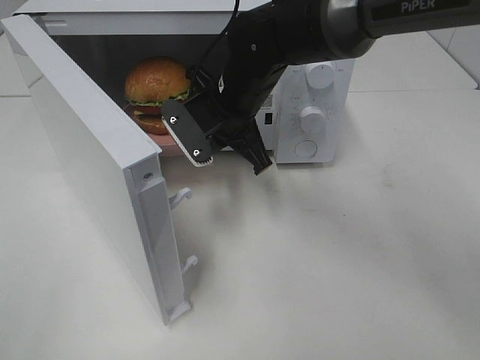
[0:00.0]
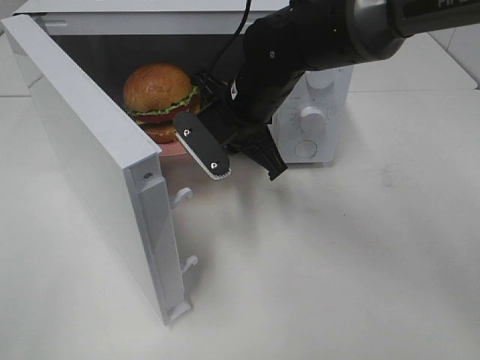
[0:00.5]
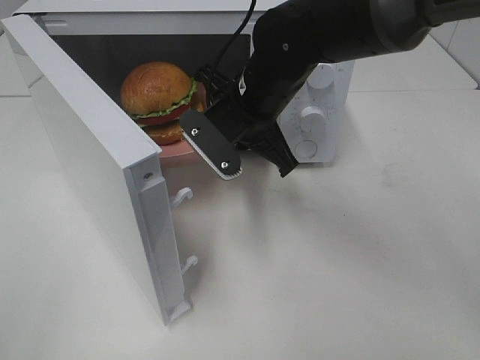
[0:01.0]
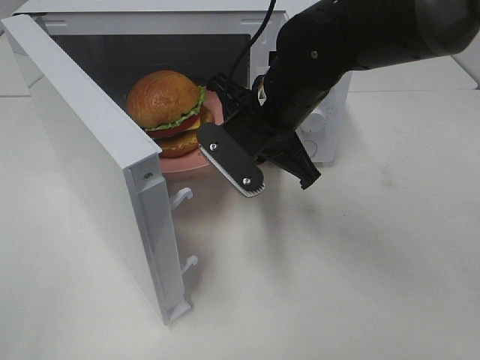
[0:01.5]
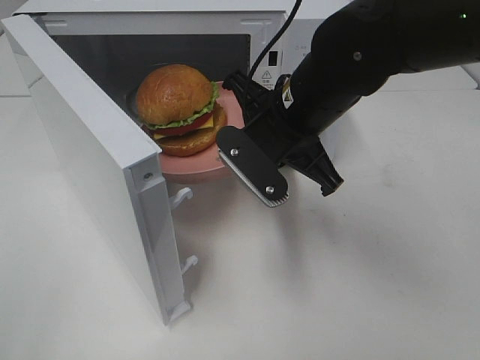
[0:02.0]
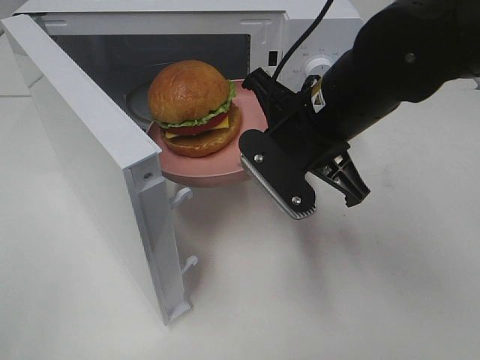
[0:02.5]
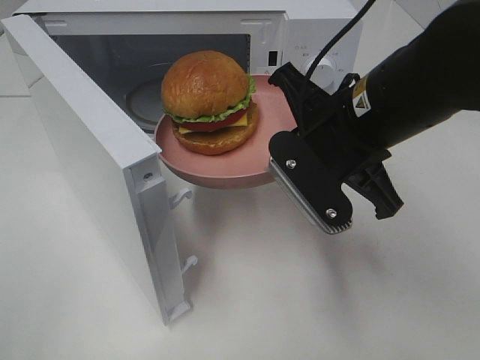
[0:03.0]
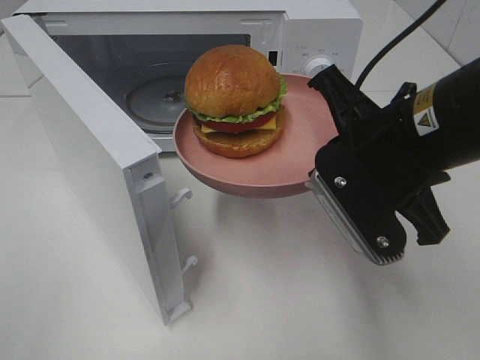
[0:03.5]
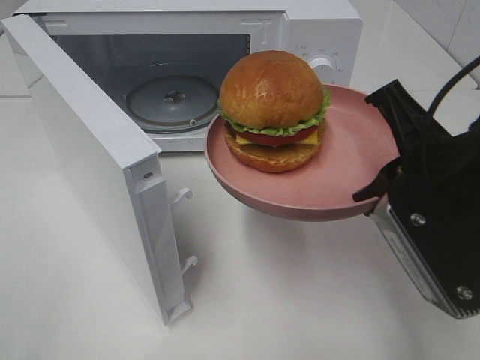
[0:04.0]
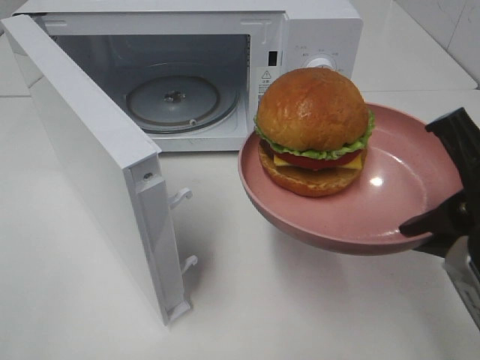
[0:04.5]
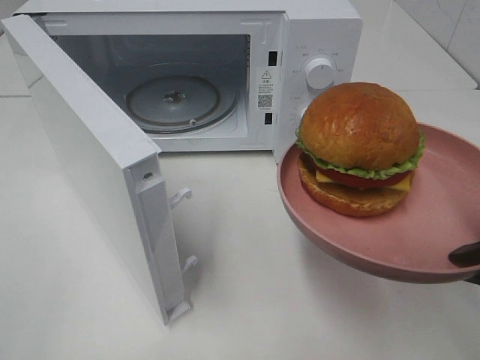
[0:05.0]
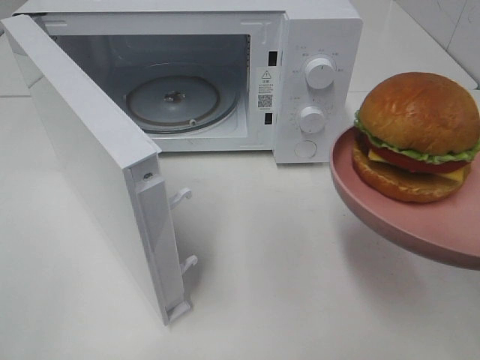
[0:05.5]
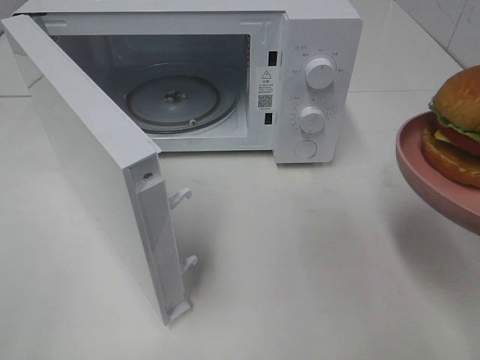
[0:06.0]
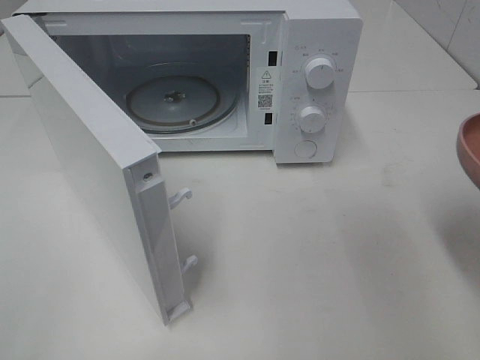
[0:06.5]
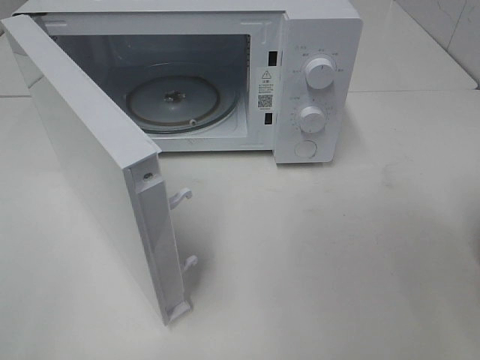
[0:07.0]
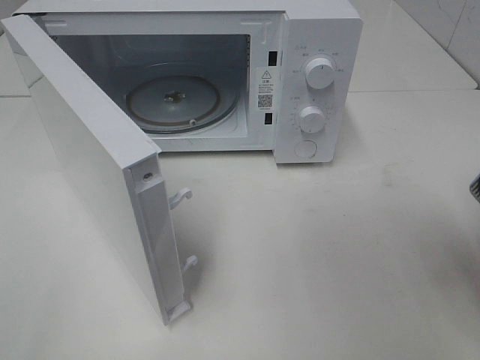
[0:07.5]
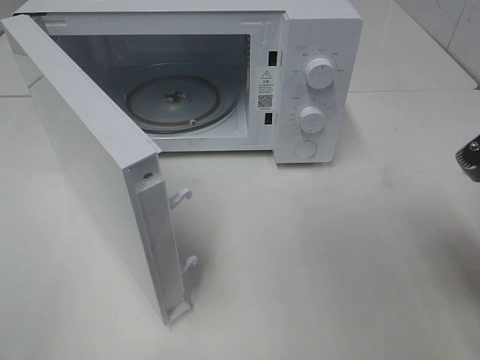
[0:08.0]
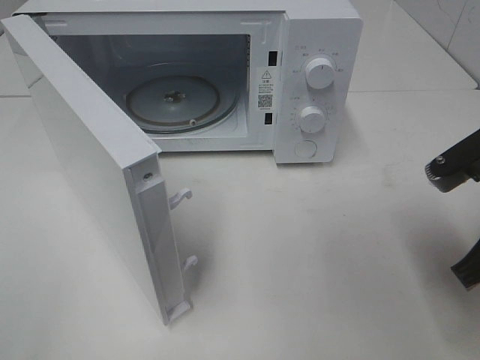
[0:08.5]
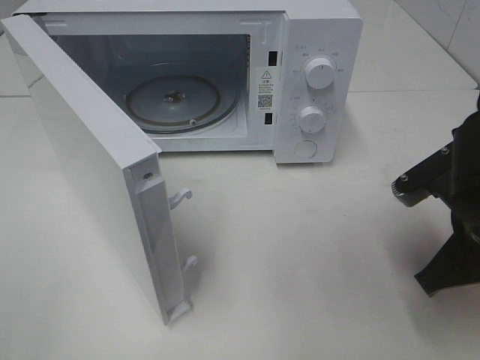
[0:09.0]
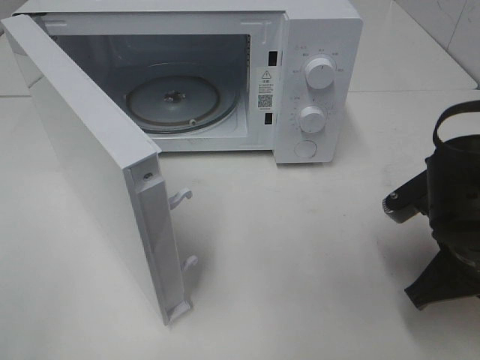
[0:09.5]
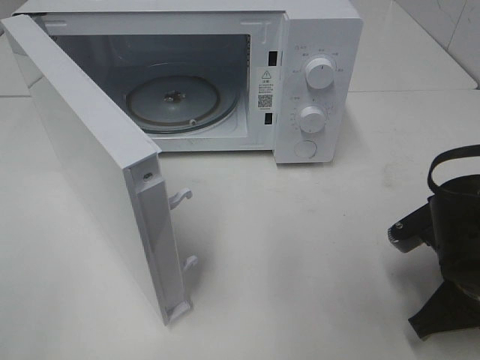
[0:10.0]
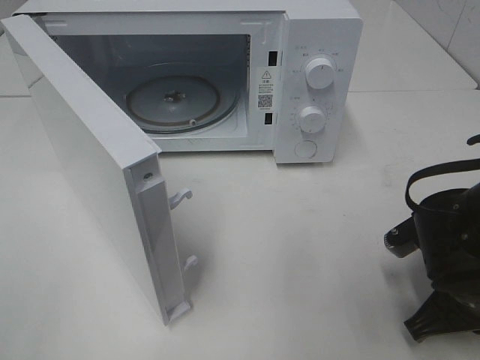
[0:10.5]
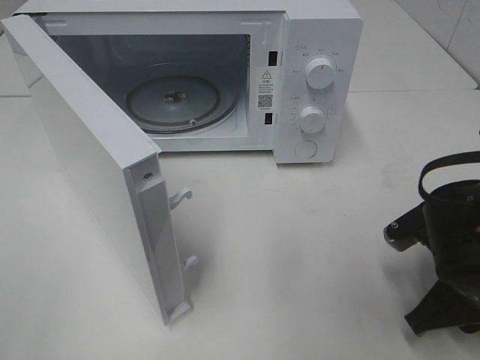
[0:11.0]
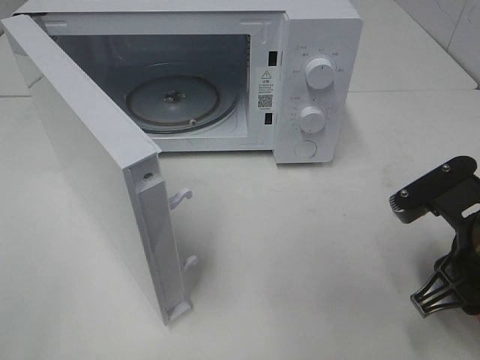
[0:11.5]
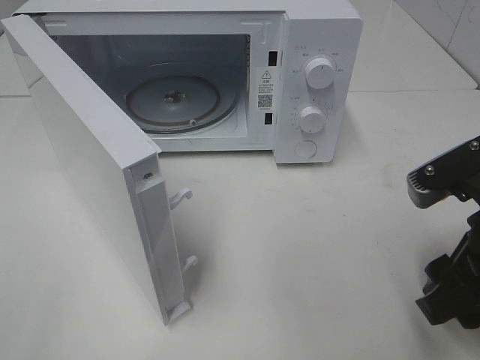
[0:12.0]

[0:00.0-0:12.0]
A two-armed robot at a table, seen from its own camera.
Task of the whole recording: Heat the burger.
Step, 0:00.0 to 0:10.5: Right hand: place the plate on the table.
0:00.0 to 0:02.0: The right gripper heads backward and to the right, covering some 10 cm.
0:02.0 to 0:04.0: The right gripper travels backward and to the right by approximately 15 cm.
0:04.0 to 0:06.0: The right gripper is displaced to the right and backward by about 10 cm.
0:06.0 to 0:08.0: The right gripper heads forward, covering approximately 5 cm.
0:08.0 to 0:10.0: The right gripper shifts about 10 cm downward.
0:10.0 to 0:12.0: The right gripper moves upward, some 10 cm, and opens its fingers.

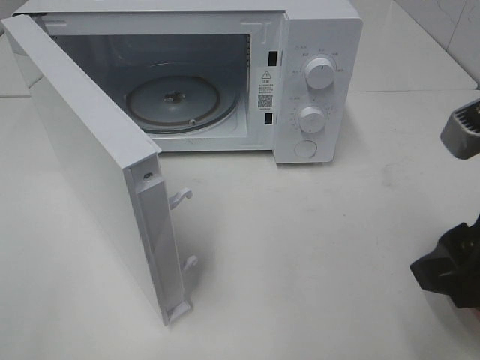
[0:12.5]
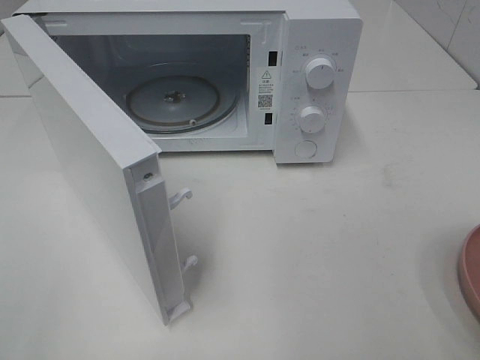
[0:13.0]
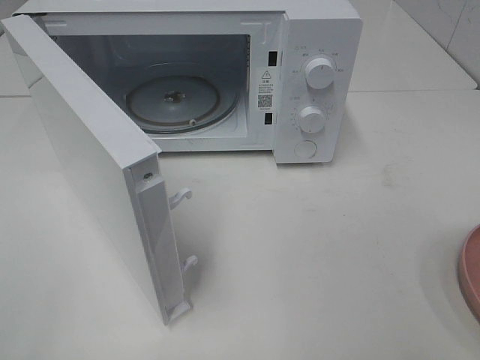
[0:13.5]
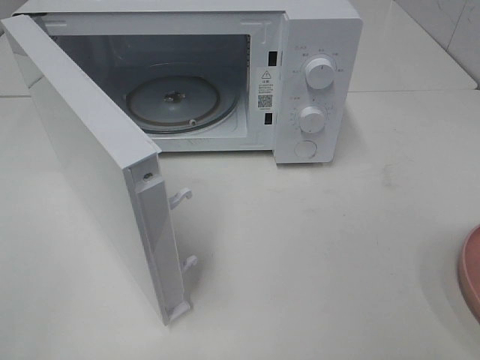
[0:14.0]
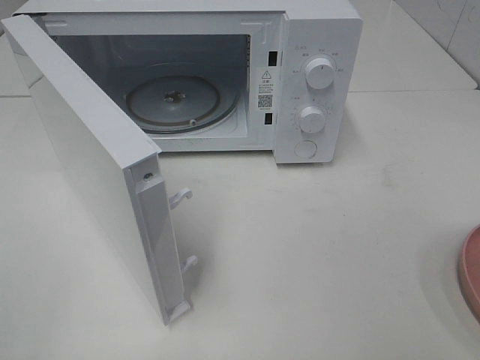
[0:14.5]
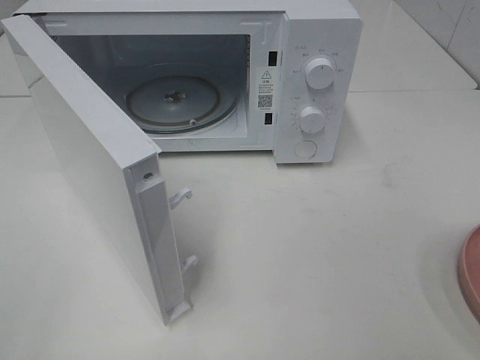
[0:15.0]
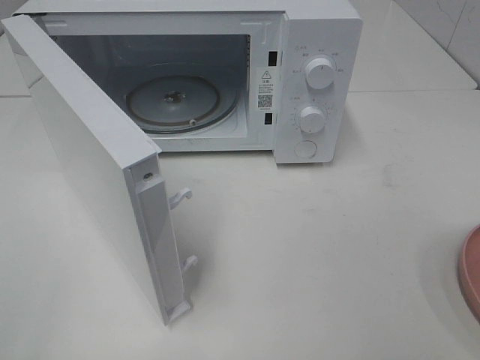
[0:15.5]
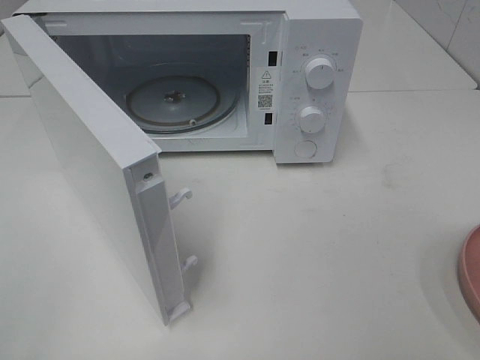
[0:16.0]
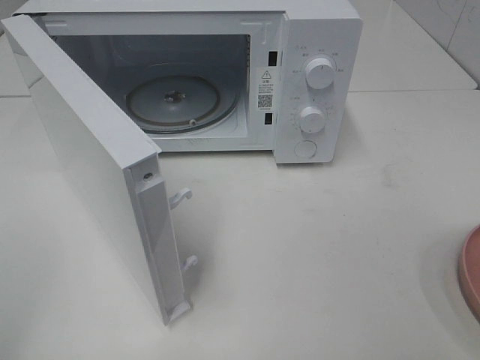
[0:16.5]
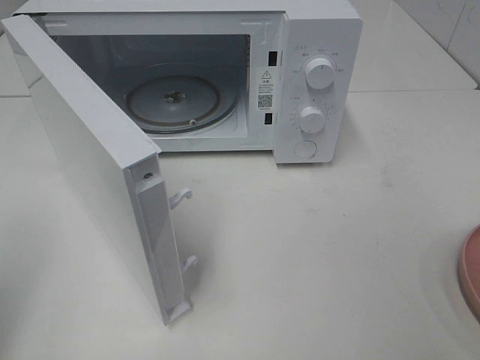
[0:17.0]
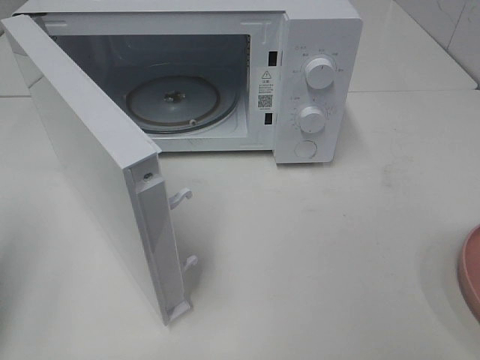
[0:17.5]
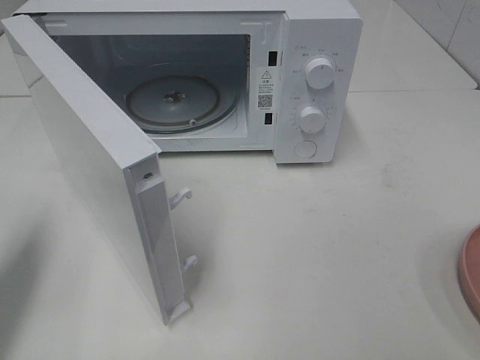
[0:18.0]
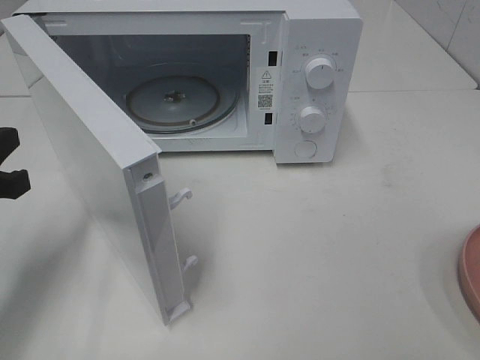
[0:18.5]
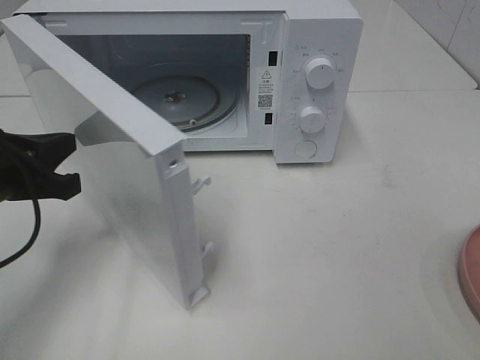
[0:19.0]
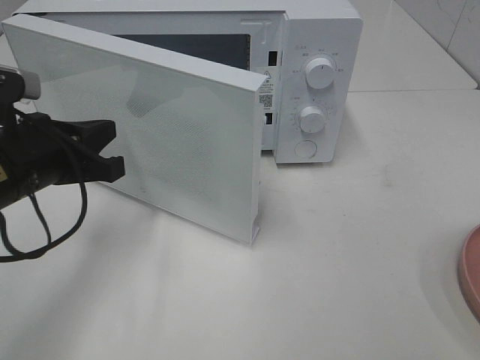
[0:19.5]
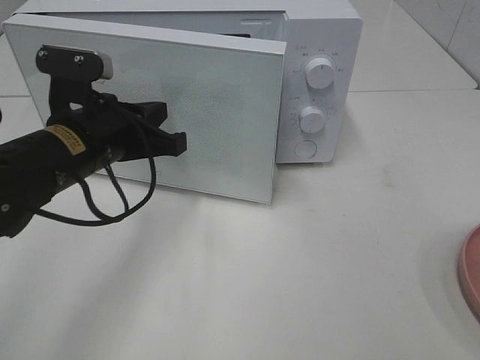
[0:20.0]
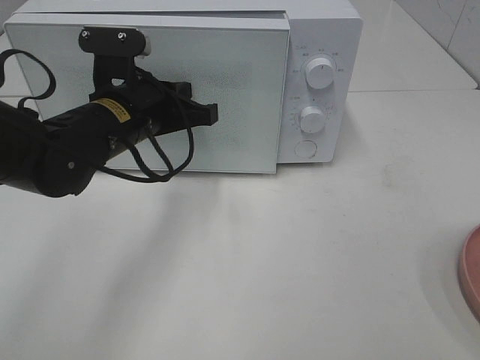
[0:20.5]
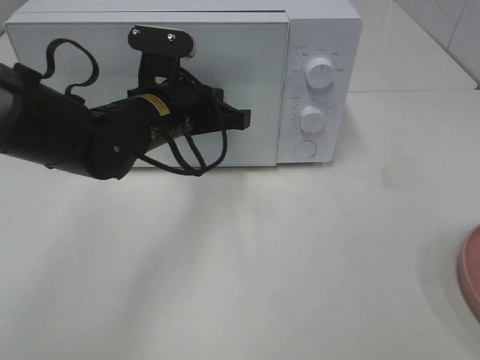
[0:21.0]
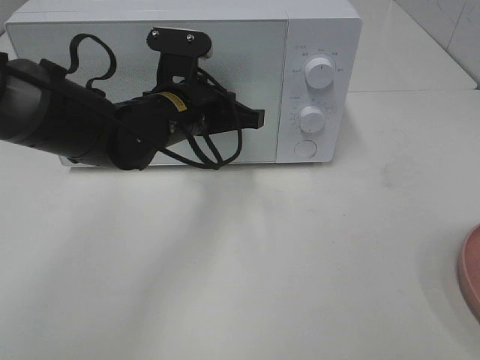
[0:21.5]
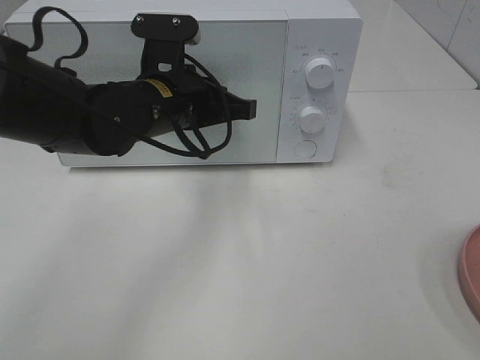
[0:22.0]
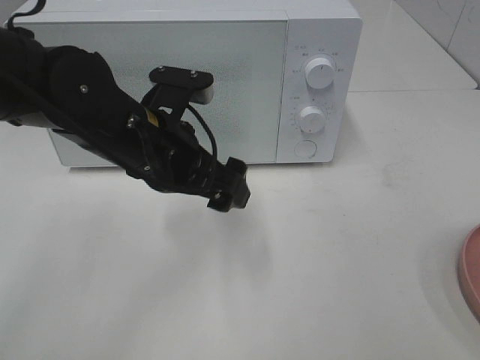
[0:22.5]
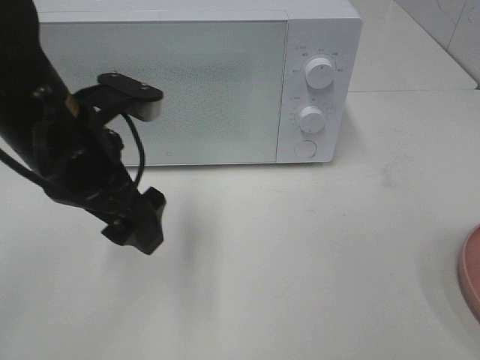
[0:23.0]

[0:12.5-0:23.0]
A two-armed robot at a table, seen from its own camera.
Task of the whole recording: Heat the burger.
Step, 0:12.5 to 0:22.0: Left hand: close the microwave door.
0:12.5 to 0:14.5: The right gripper goes approximately 15 cm backward and to the right.
0:16.5 to 0:19.0: The left gripper heads forward and downward, covering about 25 cm, and closes its fingers.
0:19.0 to 0:21.0: The left gripper heads to the right and forward, covering approximately 20 cm.
0:21.0 to 0:23.0: The left gripper heads backward, upward and to the left, covering some 15 cm, and opens.

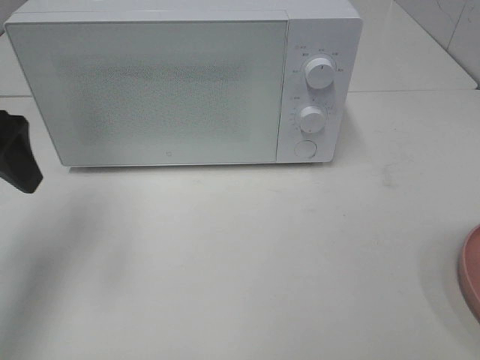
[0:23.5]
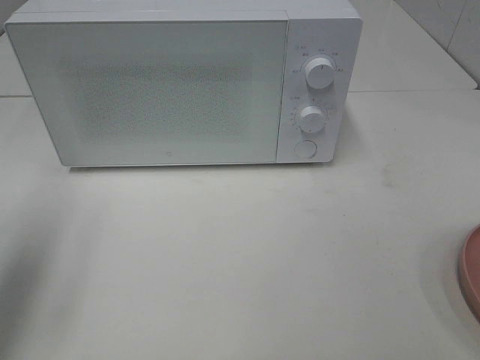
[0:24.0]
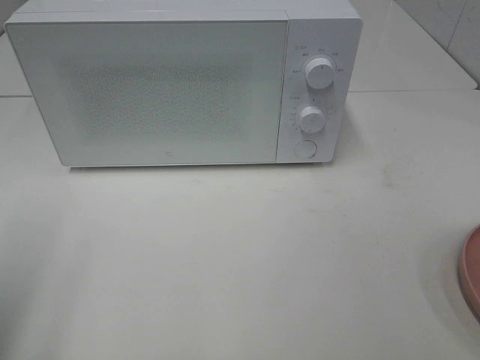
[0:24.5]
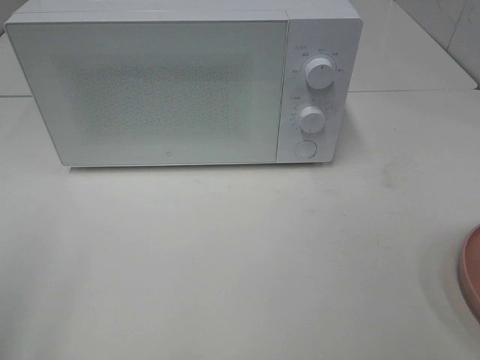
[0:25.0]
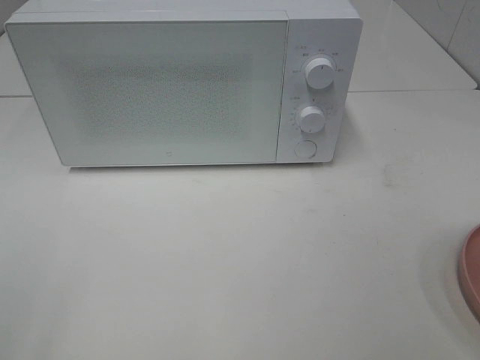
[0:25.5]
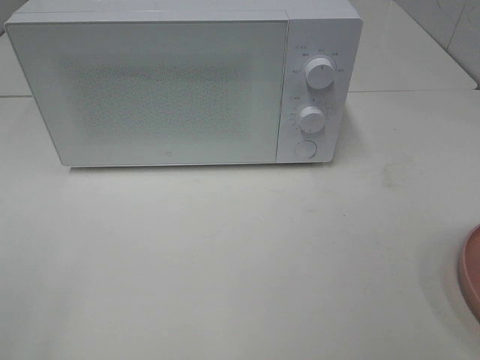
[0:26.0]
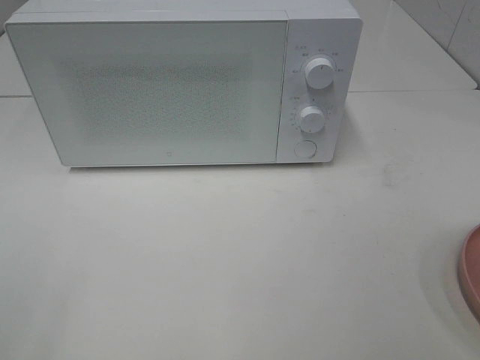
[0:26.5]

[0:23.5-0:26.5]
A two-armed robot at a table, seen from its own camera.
Task of the whole recording: Heat the burger.
0:23.5 to 0:25.0: The left gripper heads backward, covering approximately 20 cm.
